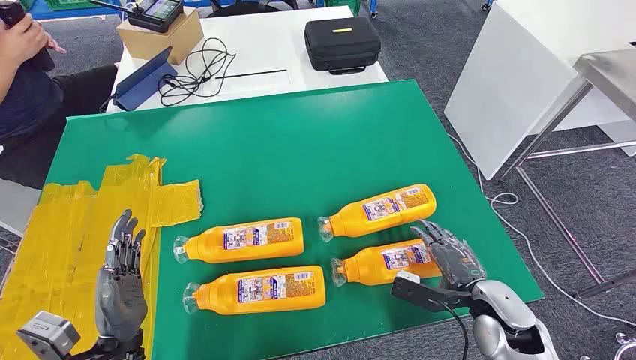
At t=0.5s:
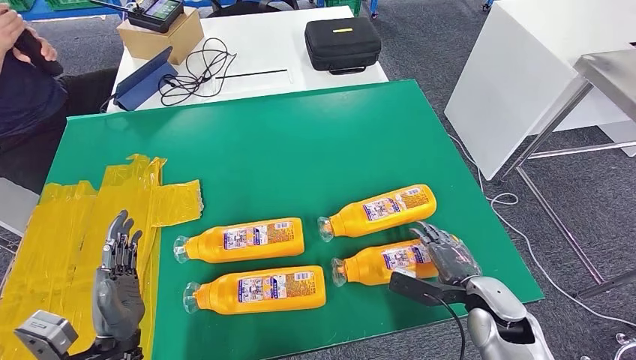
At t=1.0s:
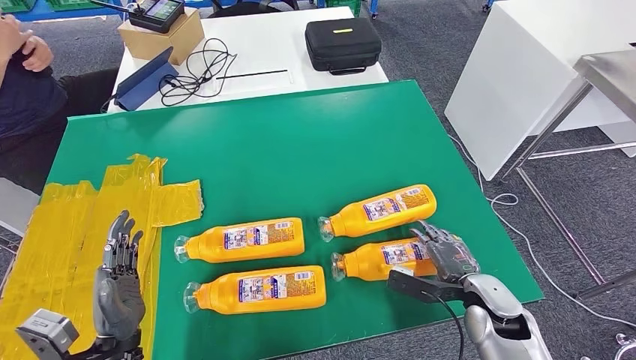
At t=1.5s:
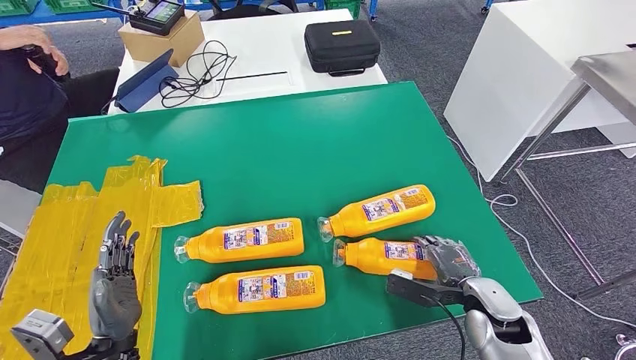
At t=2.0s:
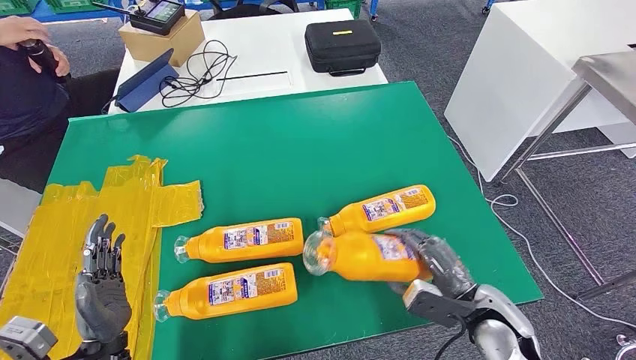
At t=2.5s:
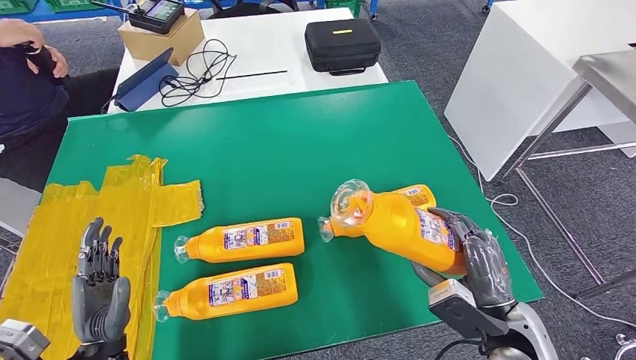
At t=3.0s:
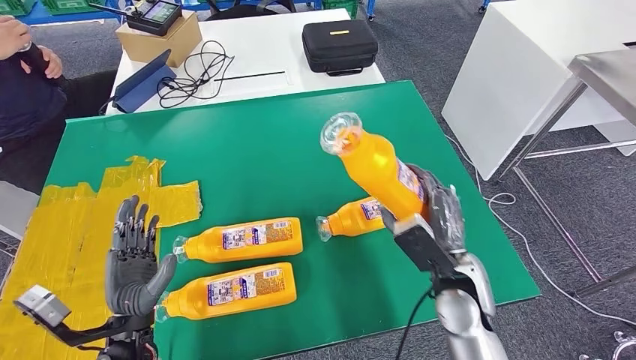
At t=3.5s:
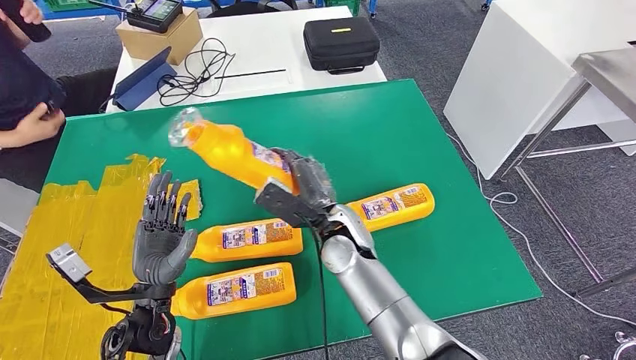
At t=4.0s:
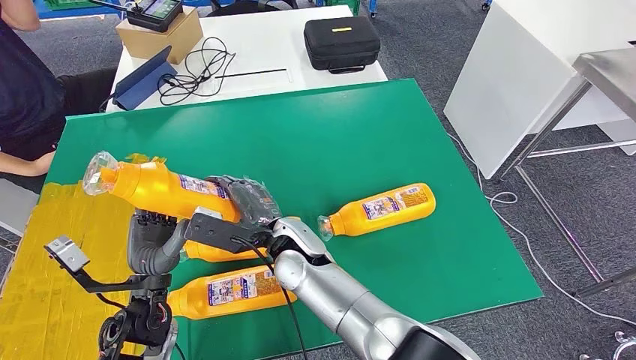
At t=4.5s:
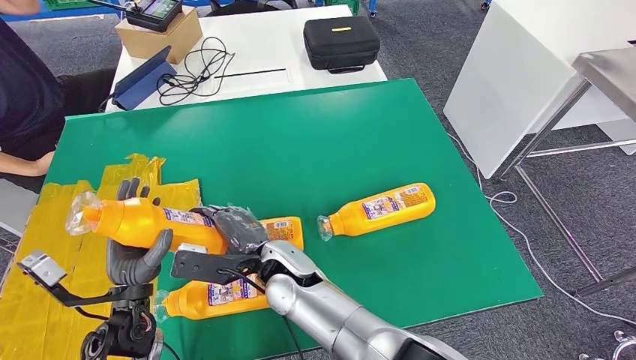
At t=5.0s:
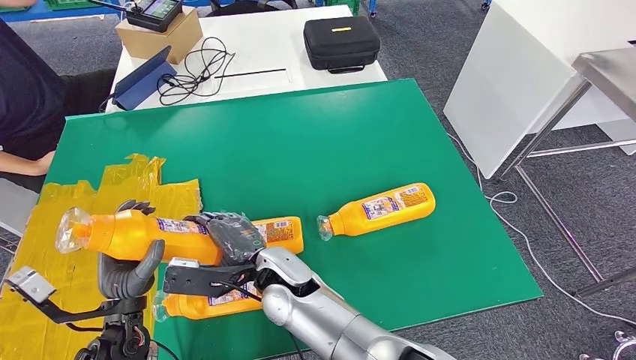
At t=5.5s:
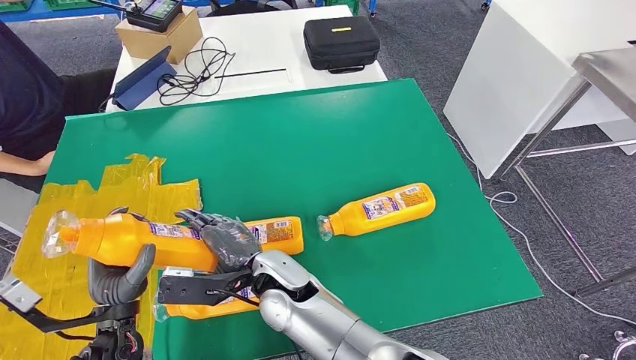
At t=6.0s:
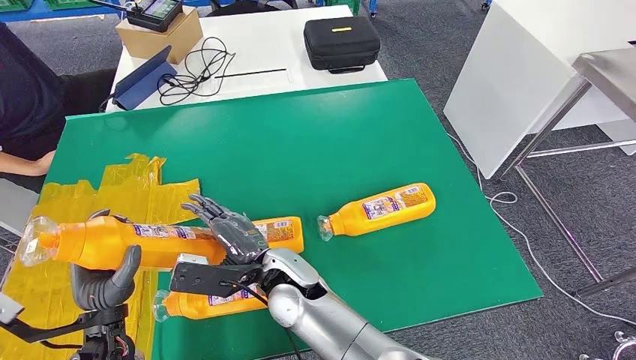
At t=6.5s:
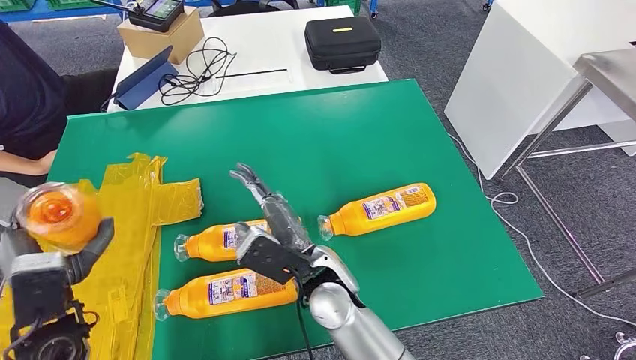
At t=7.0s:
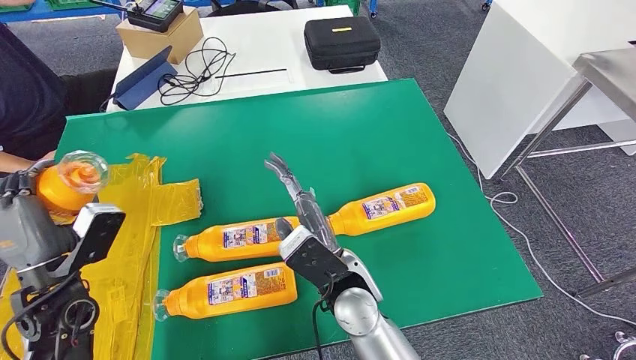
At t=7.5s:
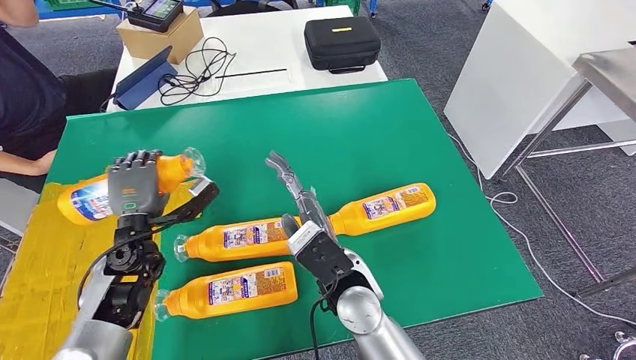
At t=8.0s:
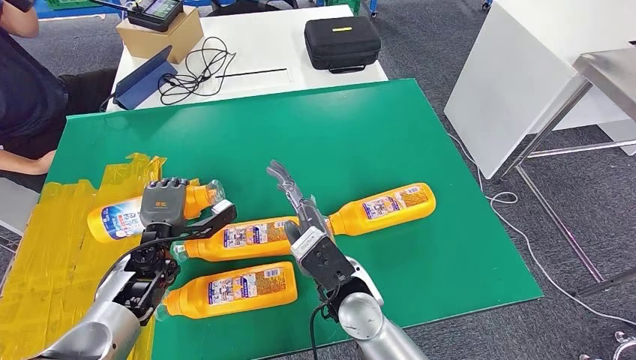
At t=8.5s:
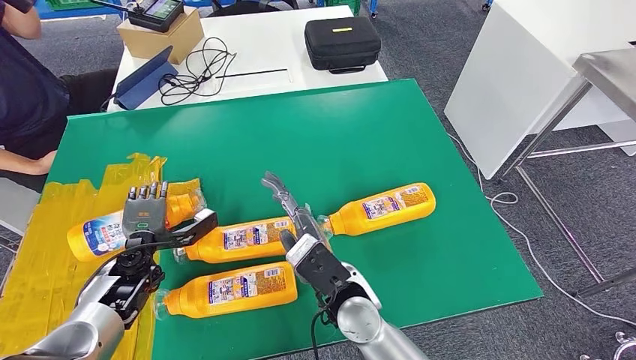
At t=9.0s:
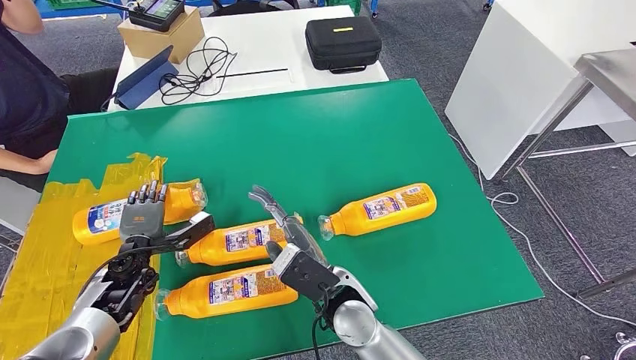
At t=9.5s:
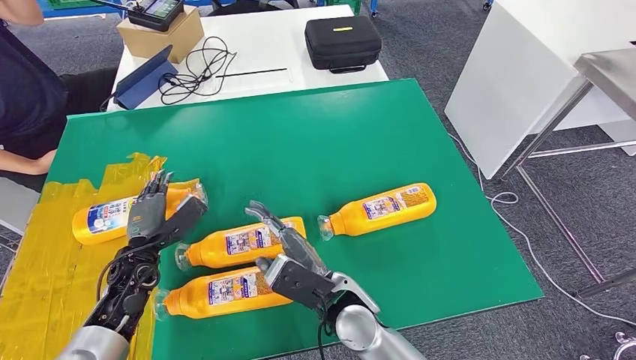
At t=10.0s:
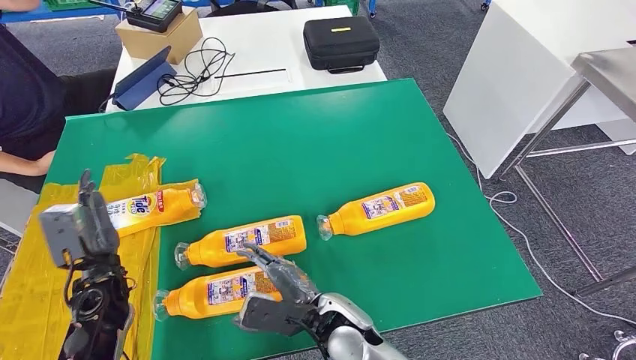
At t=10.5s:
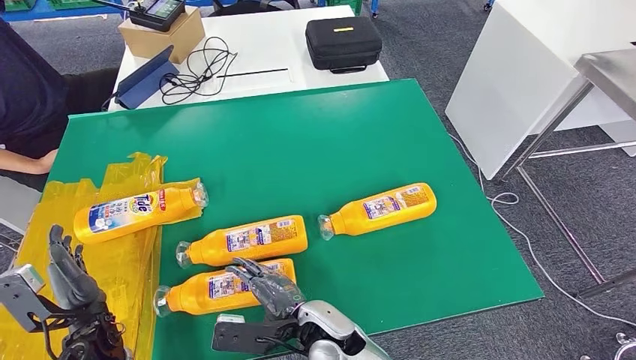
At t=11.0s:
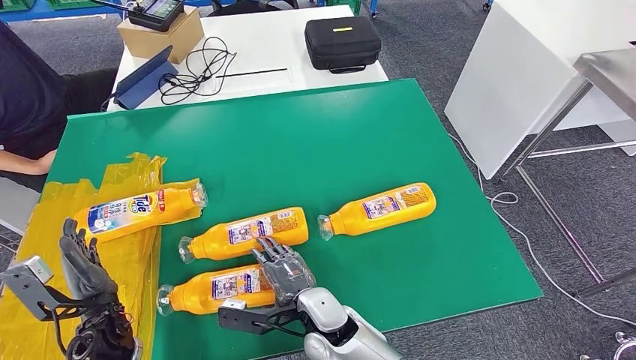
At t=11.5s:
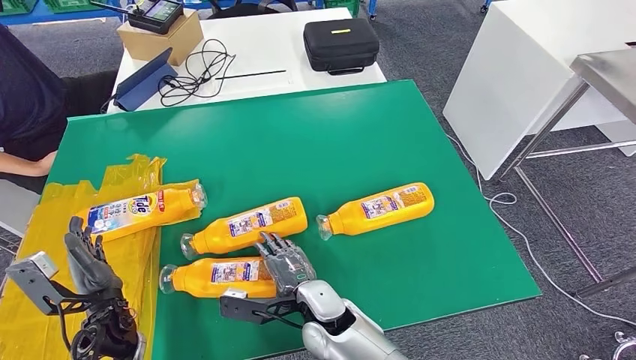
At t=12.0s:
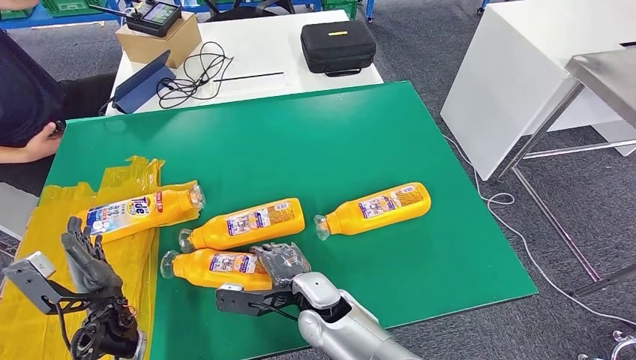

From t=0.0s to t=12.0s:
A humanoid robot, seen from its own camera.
Step, from t=0.0s to t=4.0s: Take the fast-moving consumer goods bottle from the table.
Step, from t=4.5s to t=9.0s: Flip the fast-moving consumer goods bottle to the front side.
From t=4.0s to t=6.0s: The left hand moves roughly 5 cm.
From t=6.0s to t=8.0s: The right hand goes approximately 10 cm to the right. The left hand travels forward by approximately 15 cm.
From t=8.0s to t=10.0s: The left hand travels backward and to the left by roughly 10 cm, while the right hand moves downward, roughly 5 cm.

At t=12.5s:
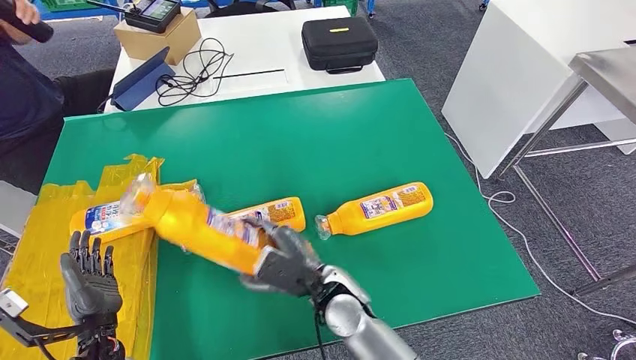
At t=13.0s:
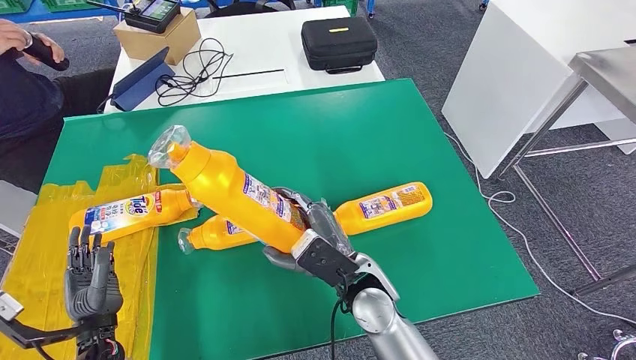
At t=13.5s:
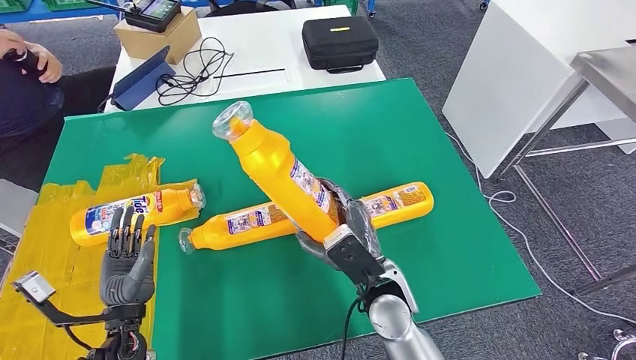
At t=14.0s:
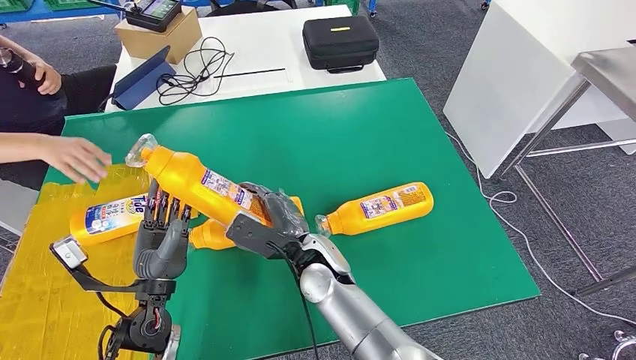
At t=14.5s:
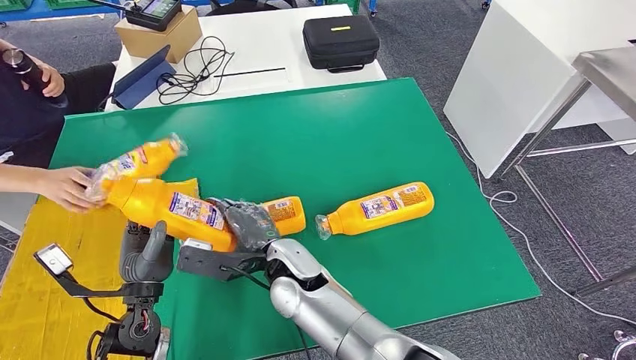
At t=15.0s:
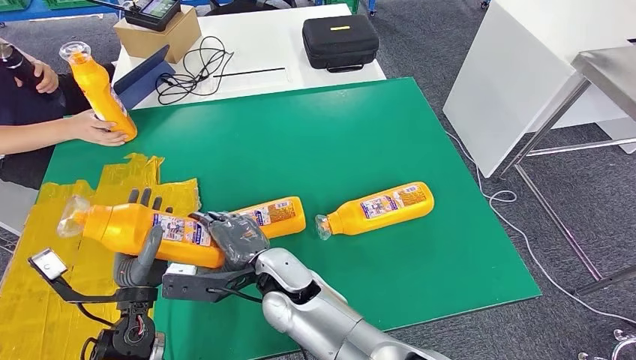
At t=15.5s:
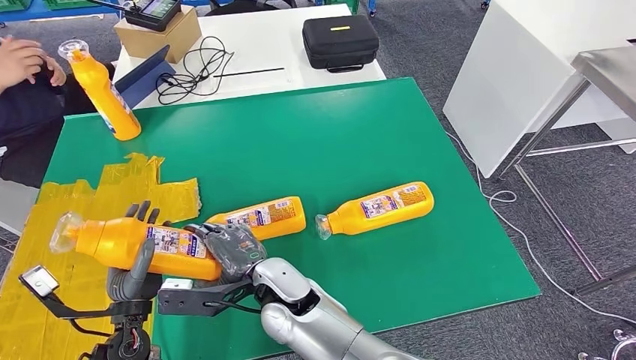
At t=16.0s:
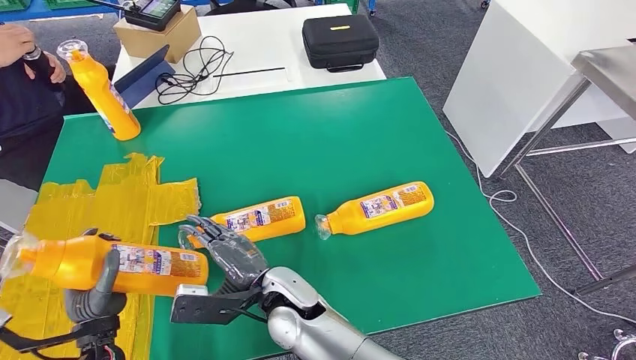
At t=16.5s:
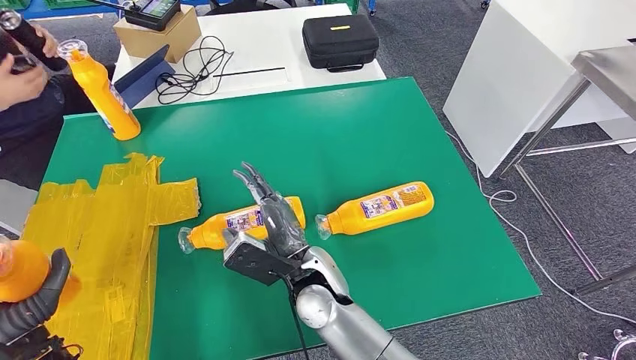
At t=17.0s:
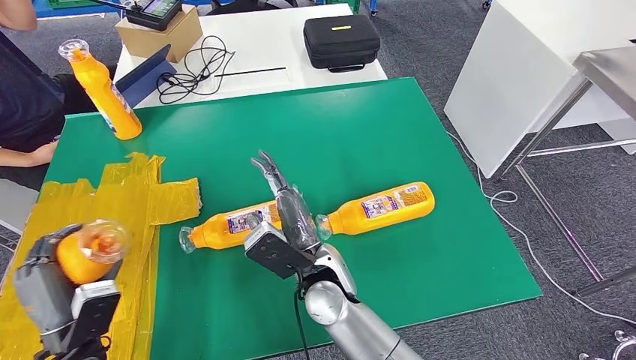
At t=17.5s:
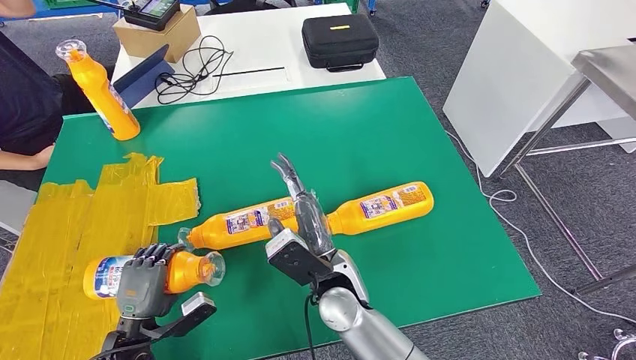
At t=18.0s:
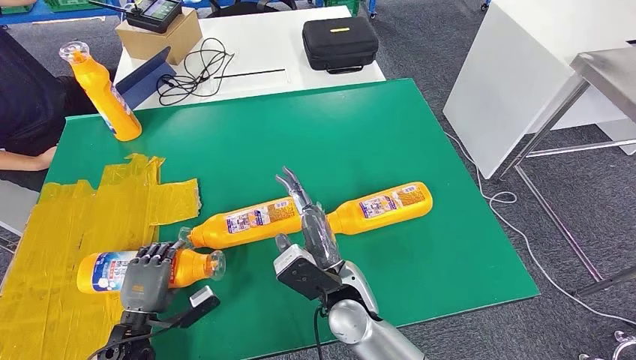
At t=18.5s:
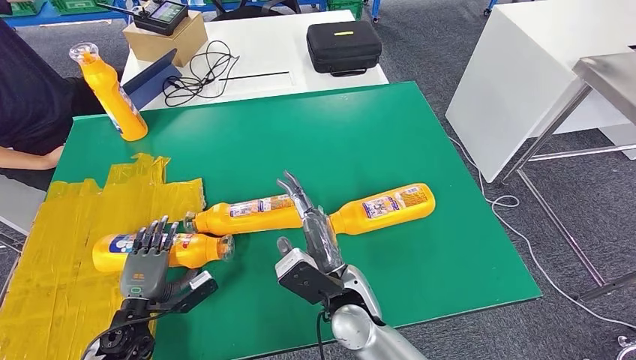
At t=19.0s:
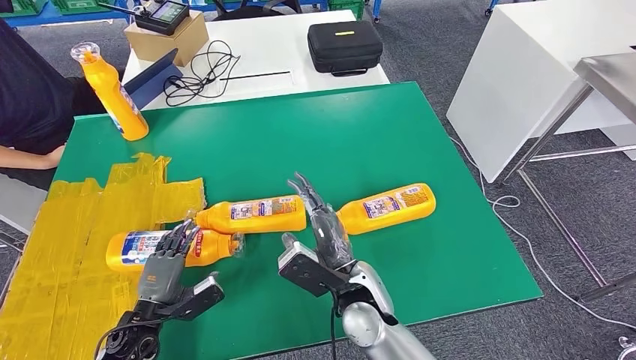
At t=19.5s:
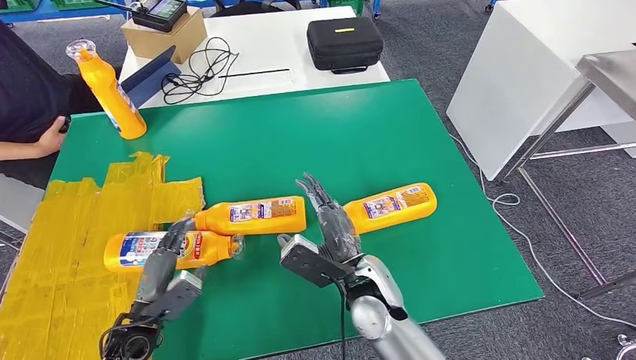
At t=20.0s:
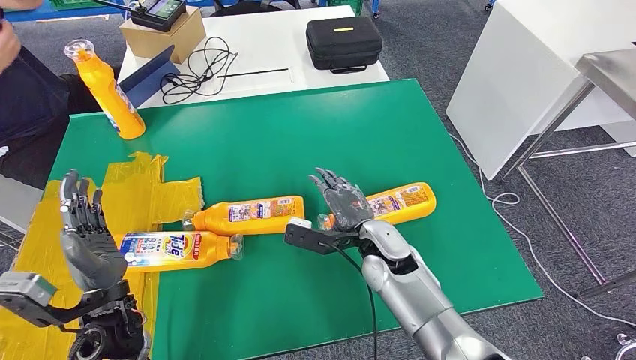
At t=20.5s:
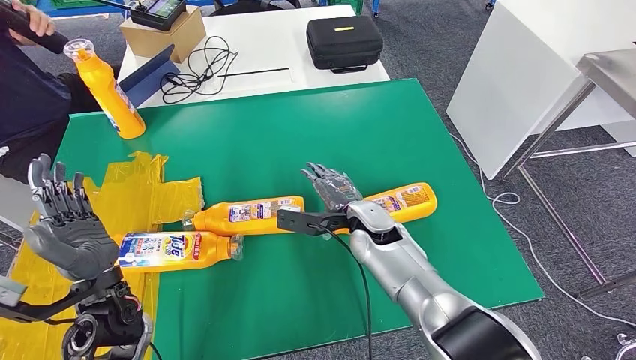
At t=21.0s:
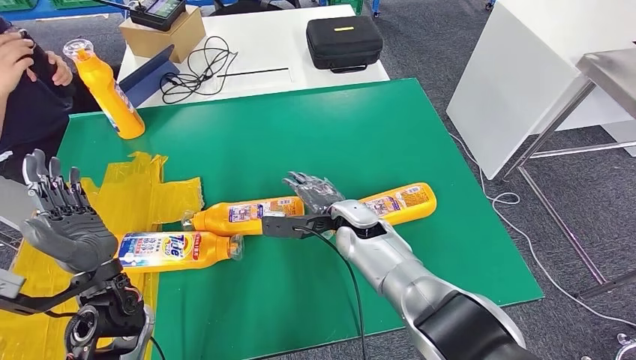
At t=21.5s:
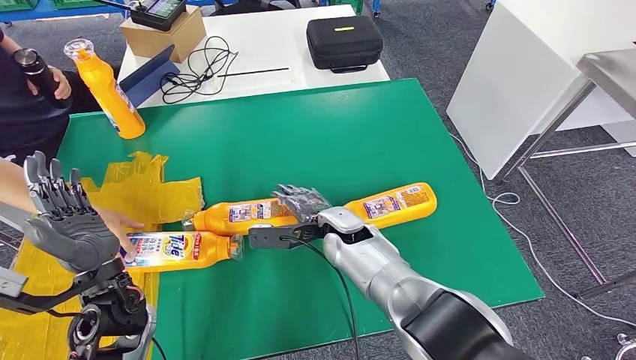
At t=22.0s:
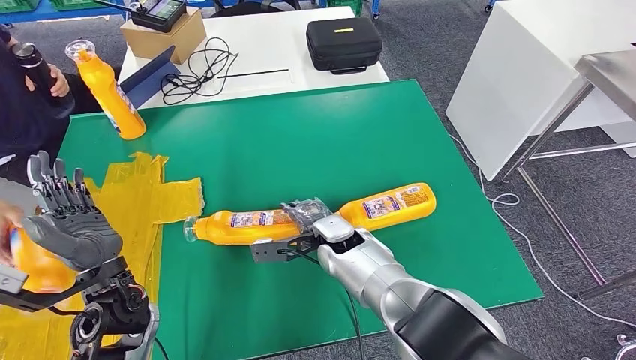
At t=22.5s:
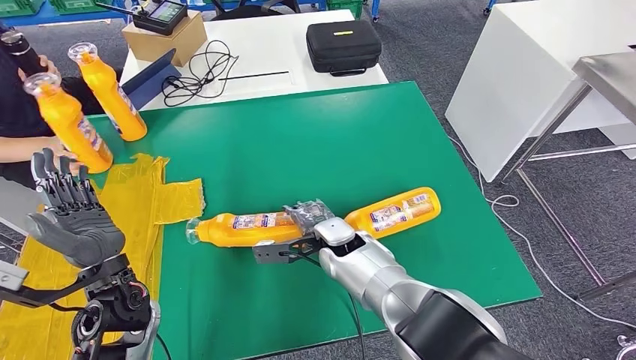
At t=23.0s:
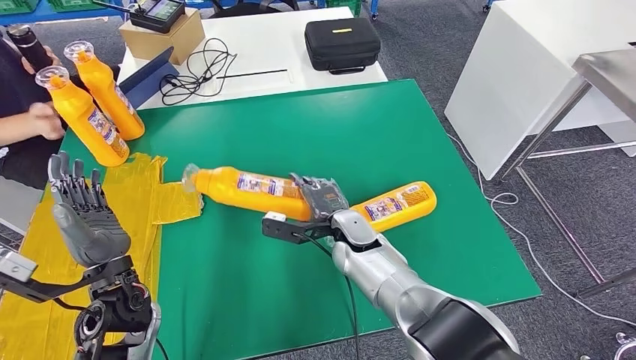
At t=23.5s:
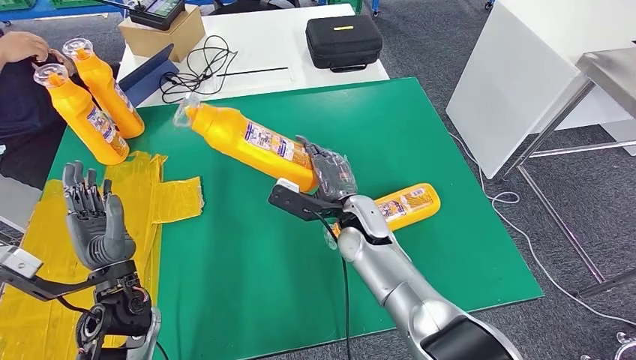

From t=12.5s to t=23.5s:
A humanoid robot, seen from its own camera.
Step, from t=13.5s to t=18.0s: Flip the fast-moving consumer goods bottle to the front side.
Step, from t=18.5s to t=23.5s: Pick up the fast-moving consumer goods bottle from the table.
From t=20.0s to t=21.5s: The right hand goes about 5 cm to the left.
